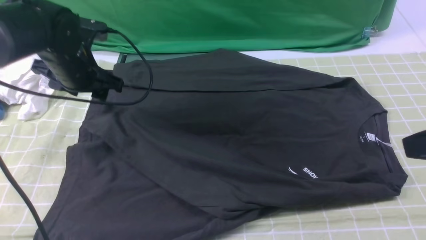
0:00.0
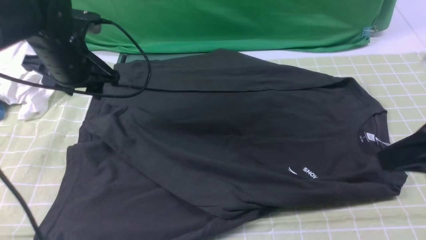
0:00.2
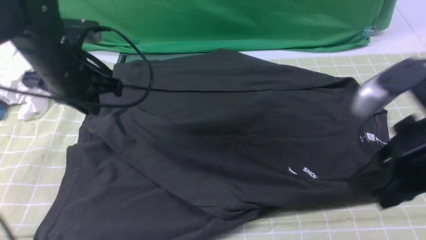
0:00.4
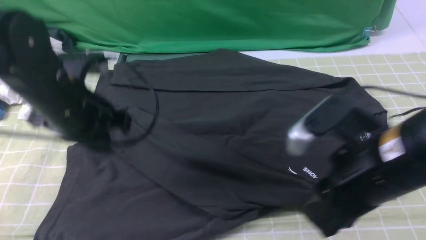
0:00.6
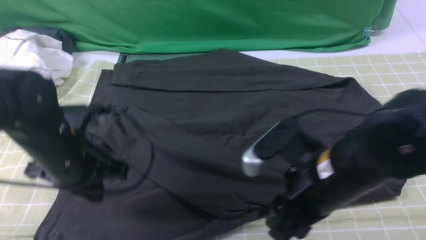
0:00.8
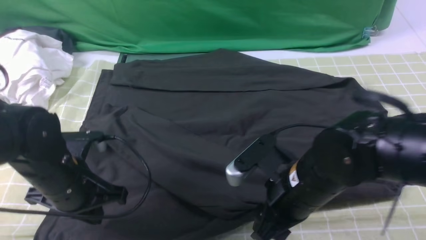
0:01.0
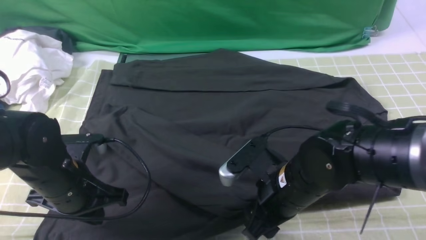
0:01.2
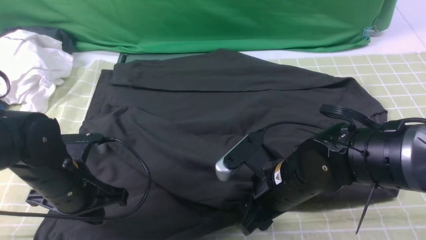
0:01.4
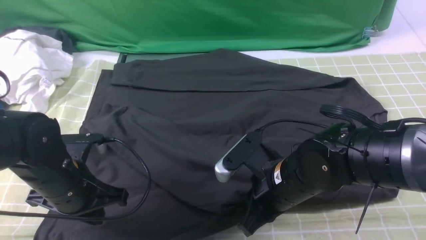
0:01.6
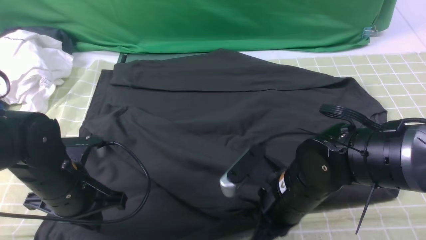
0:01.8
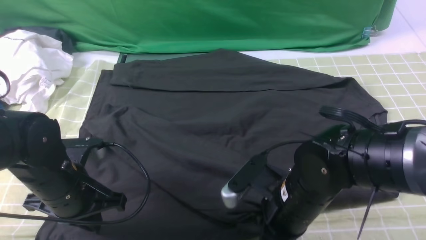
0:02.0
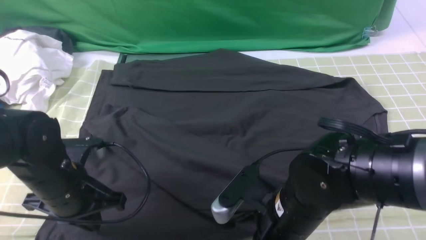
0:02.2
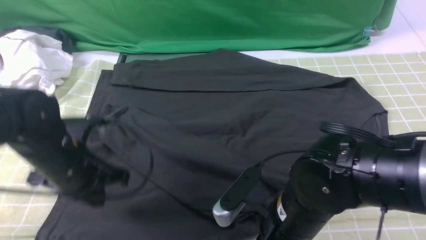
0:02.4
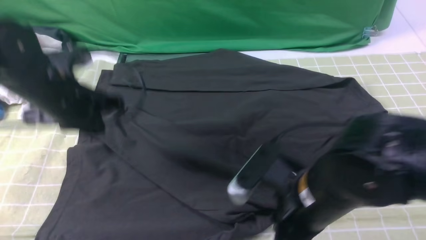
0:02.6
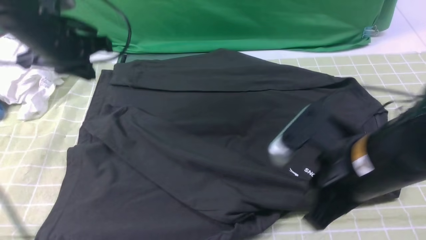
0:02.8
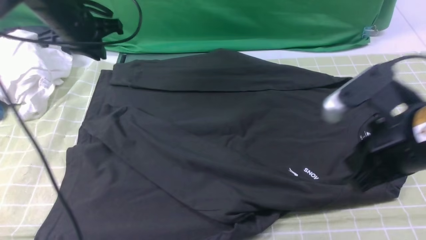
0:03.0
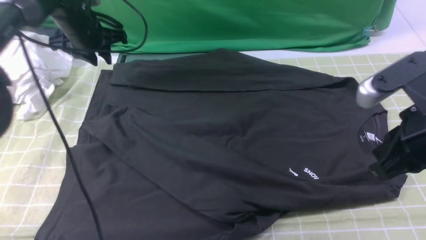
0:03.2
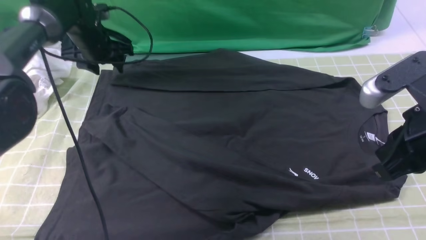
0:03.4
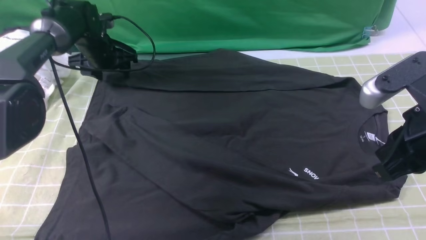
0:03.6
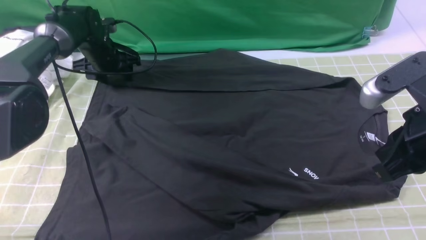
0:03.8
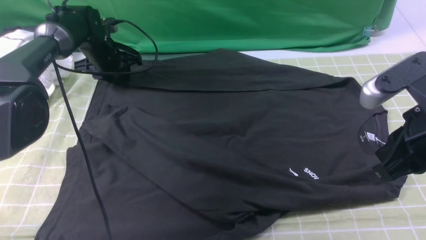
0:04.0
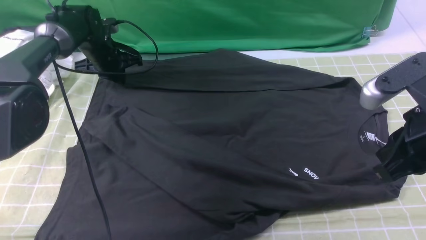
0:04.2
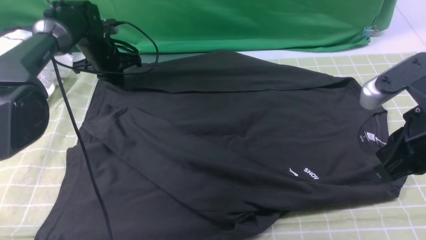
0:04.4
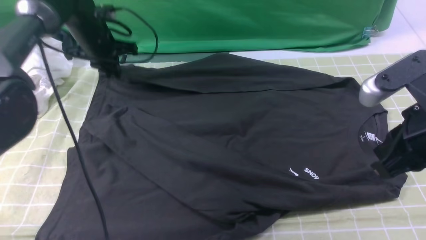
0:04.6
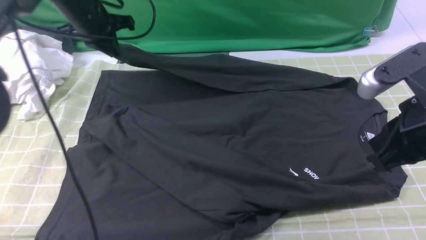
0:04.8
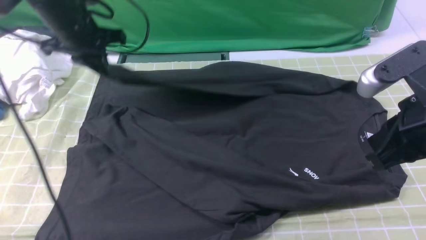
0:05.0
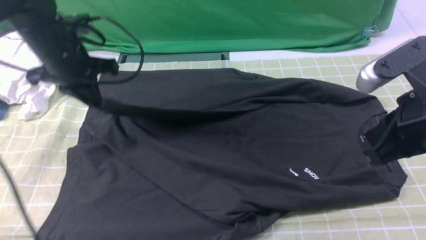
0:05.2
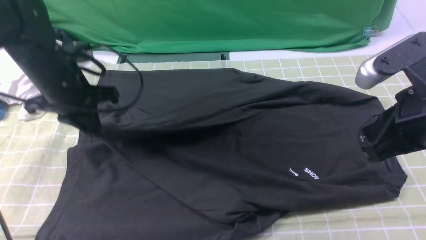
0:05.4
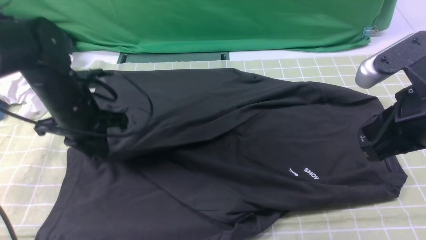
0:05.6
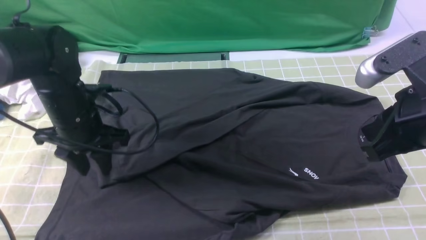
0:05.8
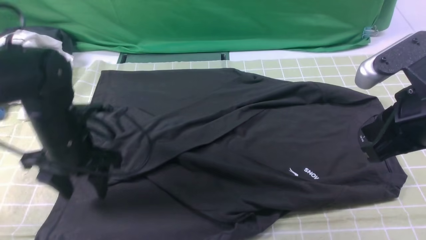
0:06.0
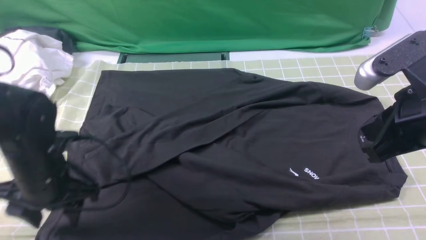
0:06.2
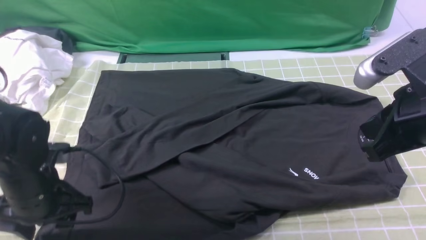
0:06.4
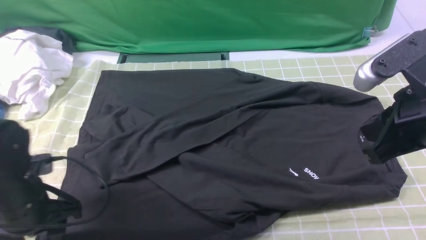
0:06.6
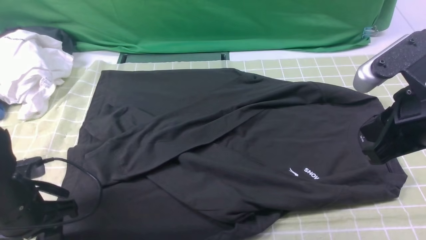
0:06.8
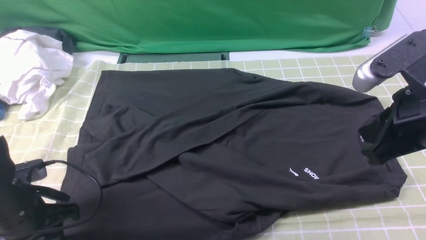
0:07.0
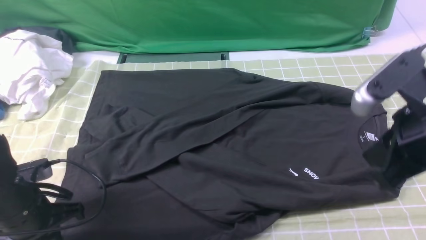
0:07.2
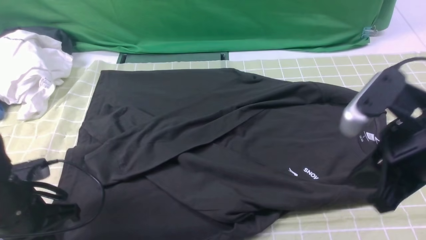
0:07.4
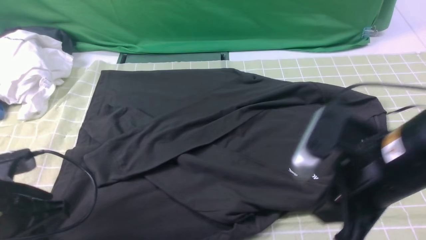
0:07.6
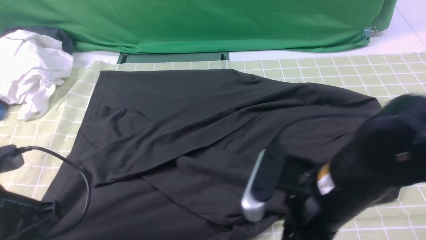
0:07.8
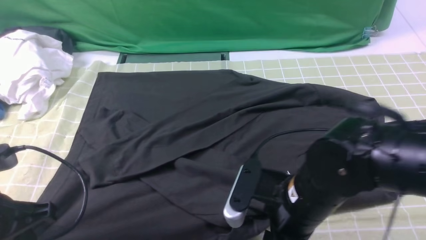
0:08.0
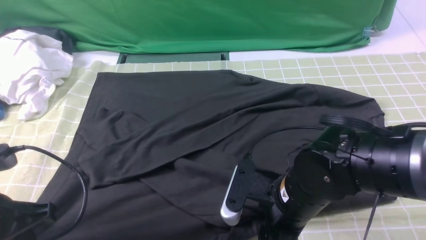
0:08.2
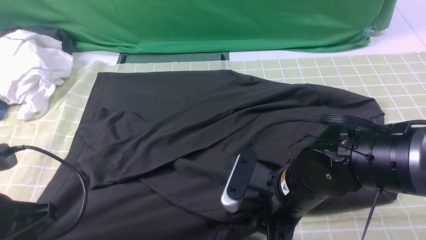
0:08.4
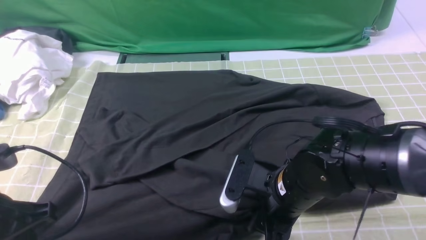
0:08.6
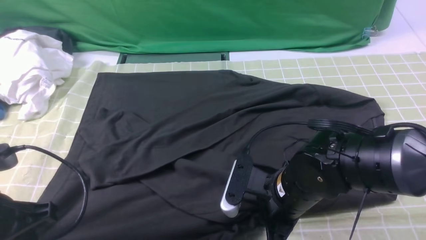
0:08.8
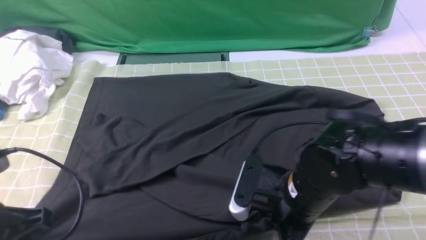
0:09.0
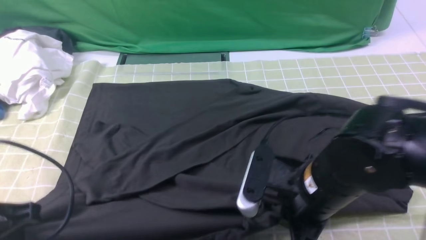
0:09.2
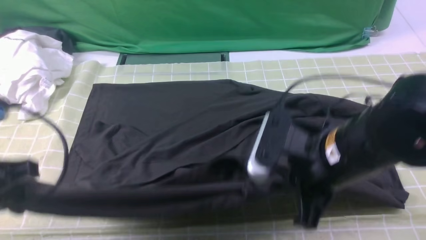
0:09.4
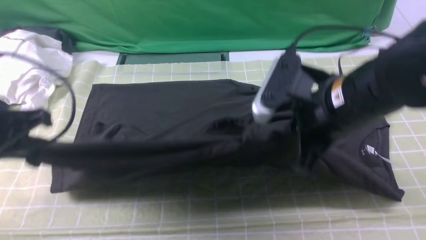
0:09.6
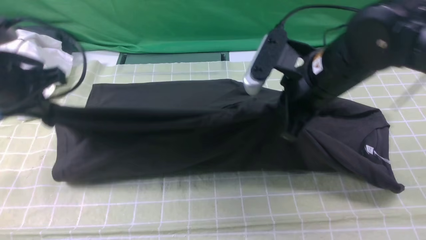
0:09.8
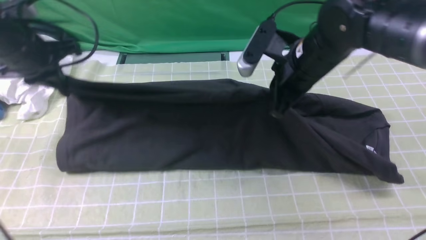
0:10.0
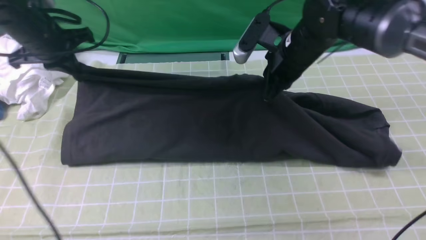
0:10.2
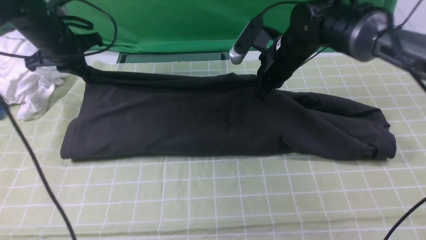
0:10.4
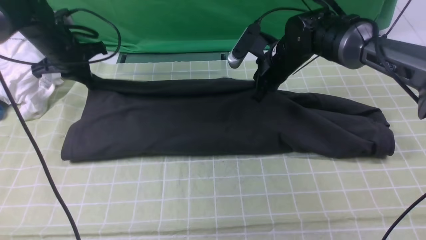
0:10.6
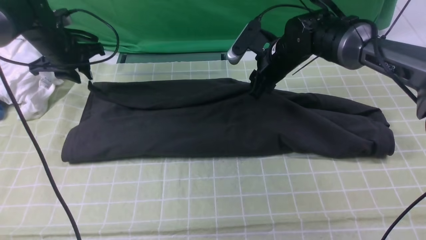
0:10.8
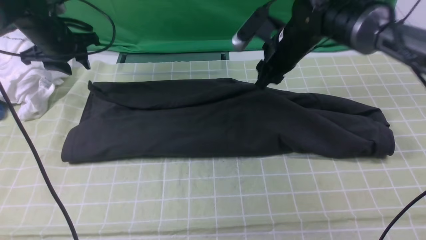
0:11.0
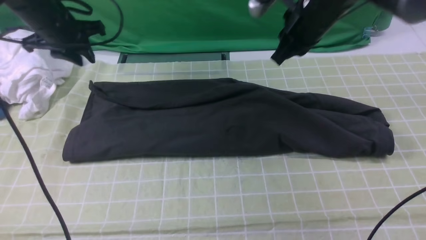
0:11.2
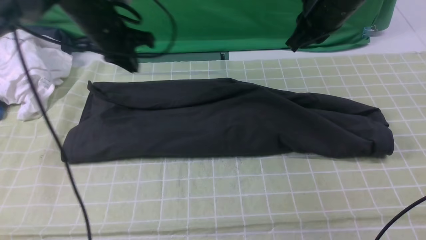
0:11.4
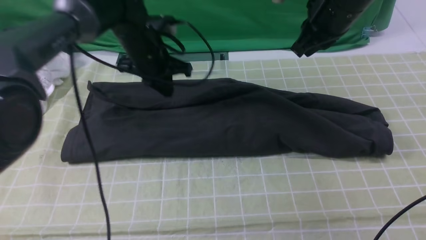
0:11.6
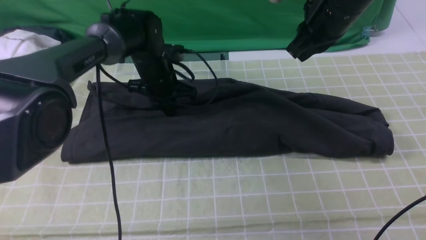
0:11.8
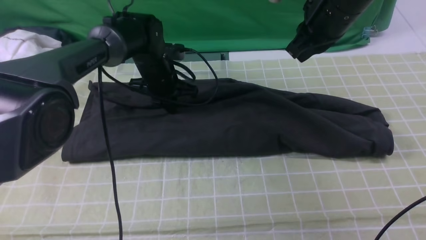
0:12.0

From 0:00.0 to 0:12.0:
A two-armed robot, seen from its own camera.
Step, from 0:00.2 to 0:04.2: use the left arm to clamp the cuff farthest from it.
Step, from 0:04.4 to 0:05.8: use the left arm to drag and drop the cuff onto the cuff closest to the left arm.
Step, from 0:06.0 to 0:08.8: use both arms simultaneously to clamp the lower edge of the clothing fabric.
From 0:00.0 to 0:01.6: The left gripper moves backward and downward, roughly 15 cm, and closes. The right gripper goes approximately 25 cm downward and to the left, and opens, then closes again.
From 0:01.6 to 0:03.0: The left gripper travels forward and upward by some 25 cm. The right gripper moves upward and to the right, approximately 15 cm.
From 0:03.0 to 0:04.4: The left gripper travels downward and forward by roughly 10 cm, and opens, then closes again.
From 0:04.4 to 0:06.0: The left gripper heads backward, covering roughly 25 cm, and opens its fingers.
From 0:06.0 to 0:07.6: The left gripper is displaced backward by some 10 cm, and closes its fingers; the right gripper is displaced to the left by about 5 cm.
From 0:07.6 to 0:09.0: The left gripper changes place by roughly 5 cm; the right gripper goes roughly 10 cm downward and to the left, and opens and closes again.
From 0:09.0 to 0:10.4: Both grippers move forward, some 30 cm.
From 0:10.4 to 0:12.0: The right gripper travels upward by approximately 10 cm, and opens, then closes once more. Meanwhile the left gripper is displaced to the right and downward by roughly 20 cm, and opens and closes again.

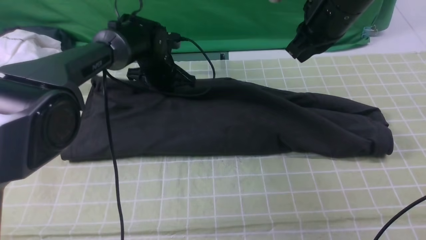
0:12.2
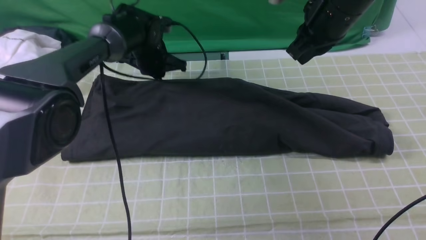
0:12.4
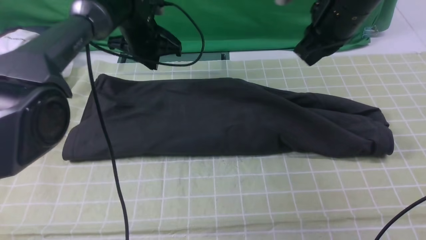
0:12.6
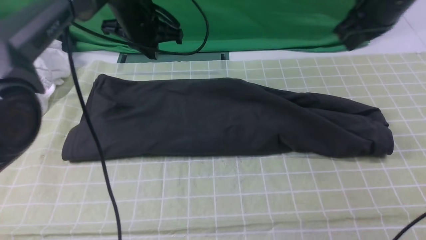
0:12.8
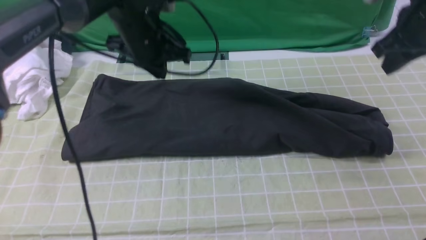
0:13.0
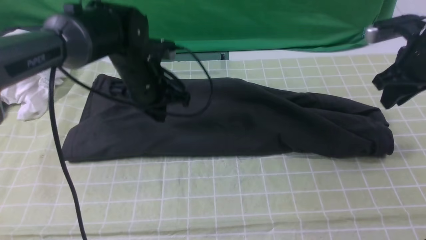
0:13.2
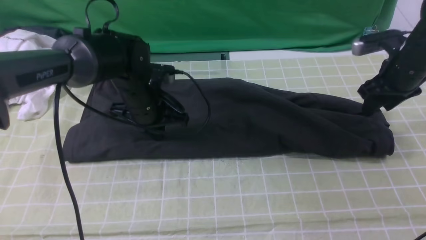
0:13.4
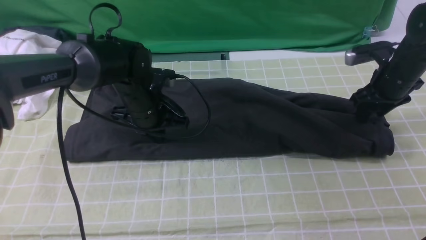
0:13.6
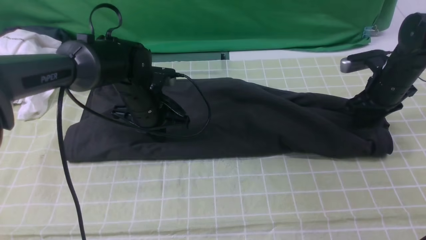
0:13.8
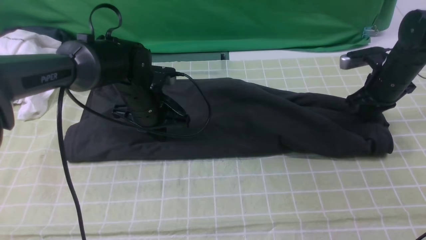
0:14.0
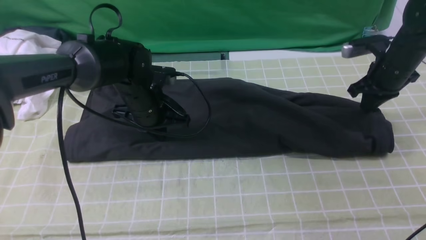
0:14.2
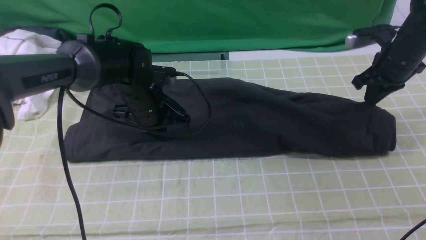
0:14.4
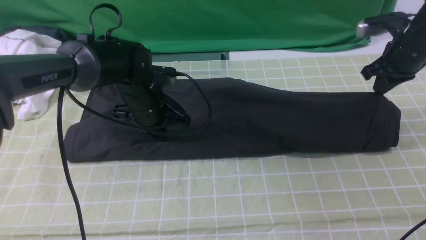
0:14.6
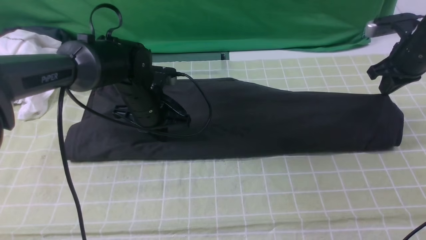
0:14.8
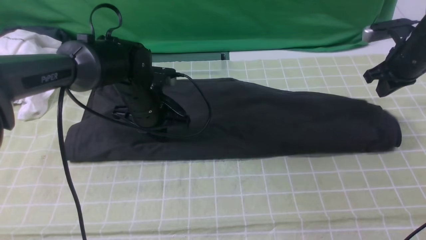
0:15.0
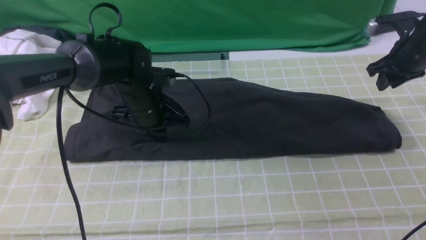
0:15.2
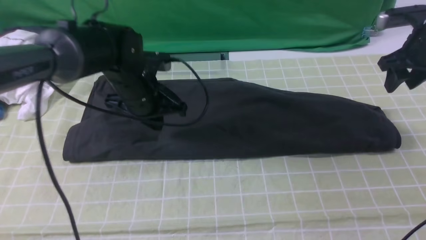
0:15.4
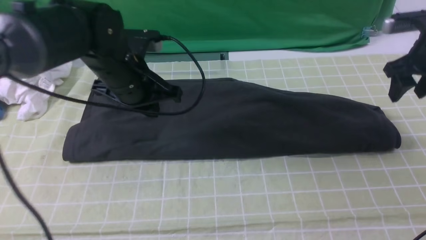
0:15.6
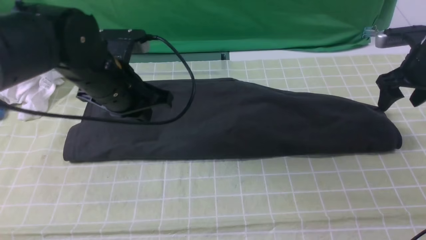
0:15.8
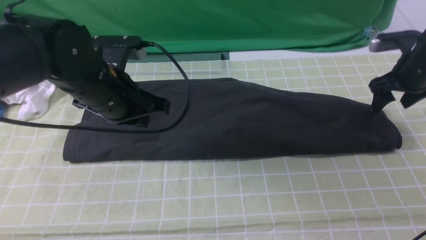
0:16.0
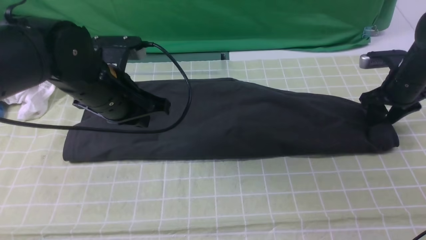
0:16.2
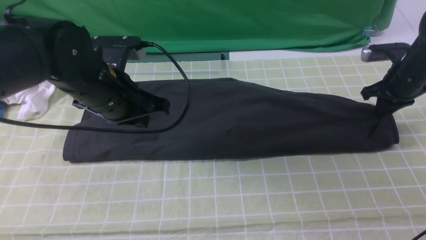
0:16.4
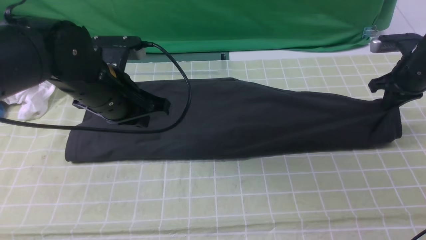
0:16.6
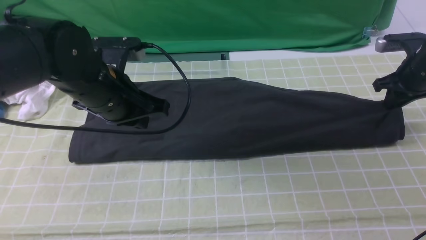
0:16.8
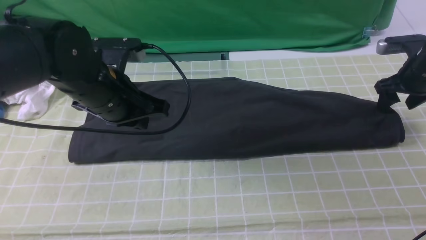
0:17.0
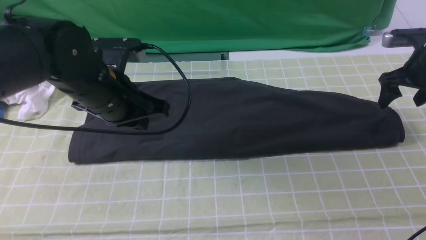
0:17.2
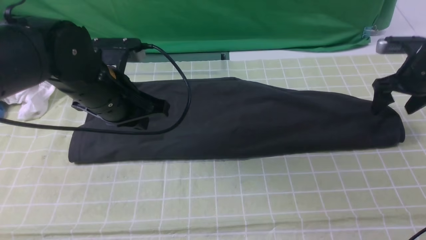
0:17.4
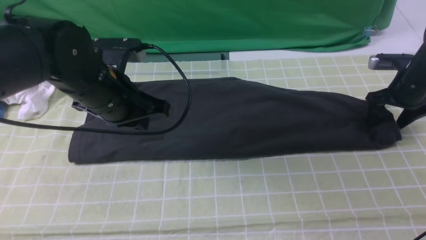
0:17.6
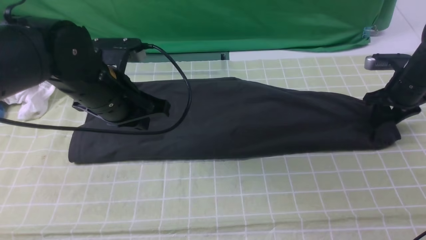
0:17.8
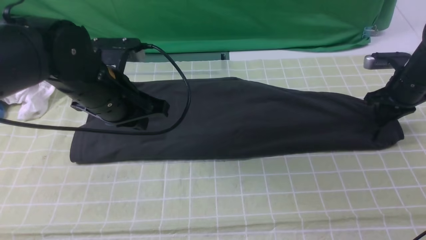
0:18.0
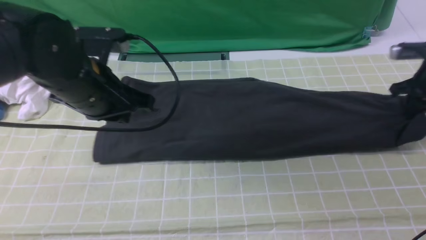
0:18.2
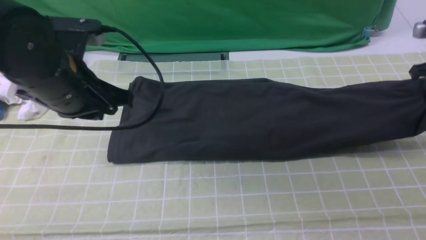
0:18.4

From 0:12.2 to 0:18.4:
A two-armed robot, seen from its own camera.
Step, from 0:12.4 to 0:17.8: use the right arm to clamp the right edge of the fabric.
From 0:12.2 to 0:13.8: The right gripper goes roughly 20 cm downward and to the right, and opens its fingers; the left gripper shifts some 10 cm backward.
From 0:13.8 to 0:15.4: The right gripper shifts roughly 5 cm upward, and closes, then opens again.
From 0:15.4 to 0:16.8: The right gripper moves downward, about 5 cm. The left gripper travels backward by roughly 5 cm.
From 0:16.8 to 0:18.4: The right gripper goes about 5 cm upward, and closes. The left gripper changes place by about 5 cm.
